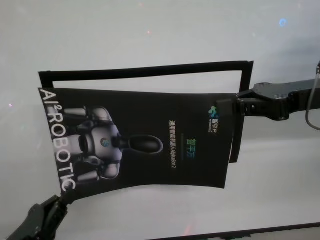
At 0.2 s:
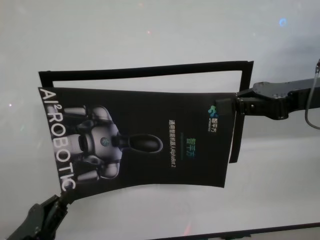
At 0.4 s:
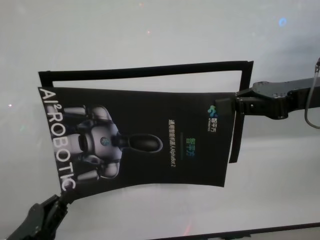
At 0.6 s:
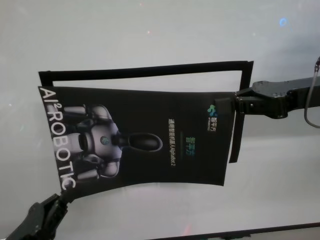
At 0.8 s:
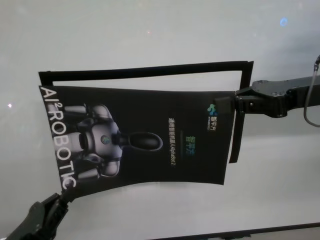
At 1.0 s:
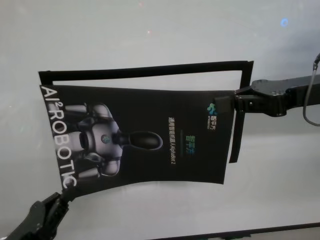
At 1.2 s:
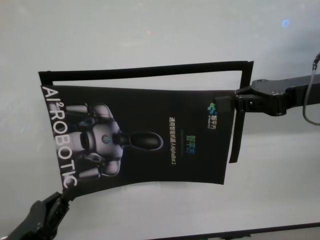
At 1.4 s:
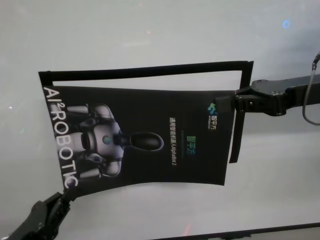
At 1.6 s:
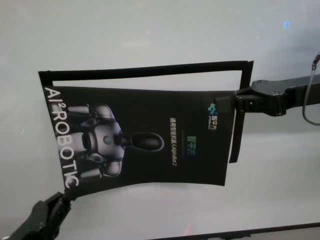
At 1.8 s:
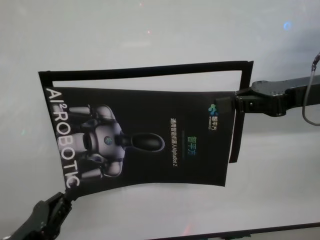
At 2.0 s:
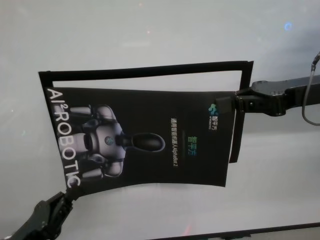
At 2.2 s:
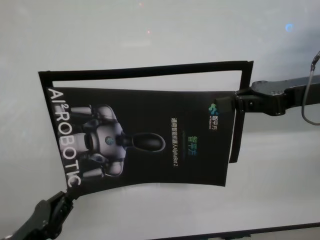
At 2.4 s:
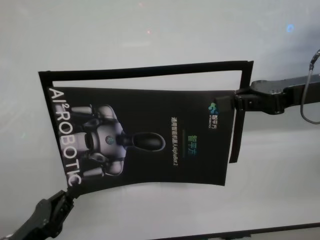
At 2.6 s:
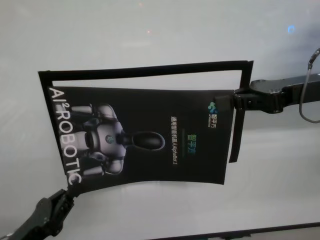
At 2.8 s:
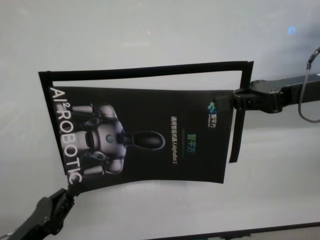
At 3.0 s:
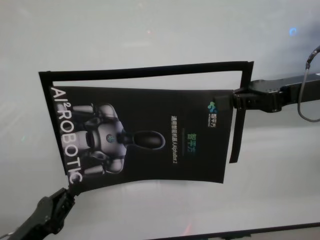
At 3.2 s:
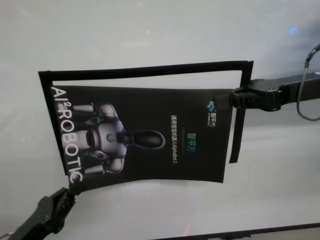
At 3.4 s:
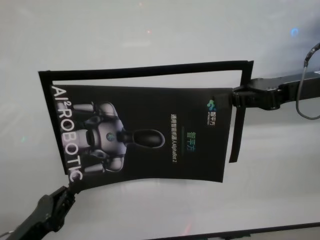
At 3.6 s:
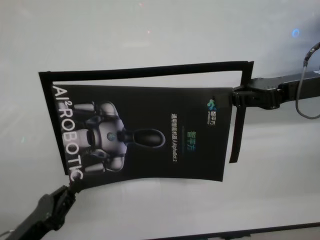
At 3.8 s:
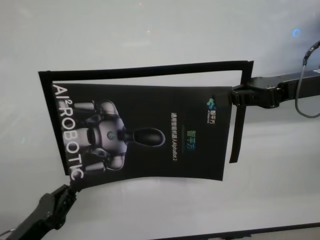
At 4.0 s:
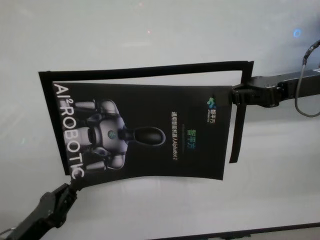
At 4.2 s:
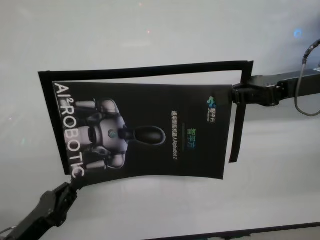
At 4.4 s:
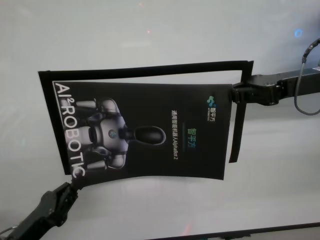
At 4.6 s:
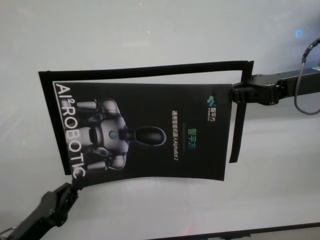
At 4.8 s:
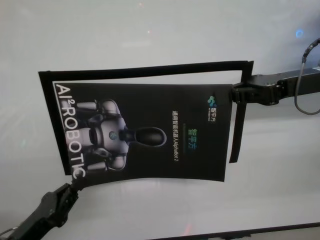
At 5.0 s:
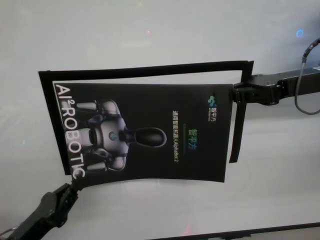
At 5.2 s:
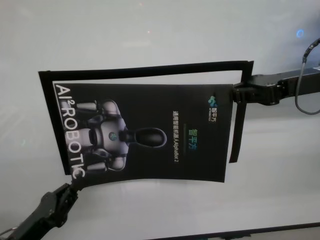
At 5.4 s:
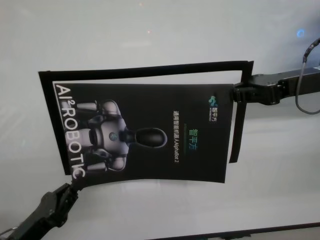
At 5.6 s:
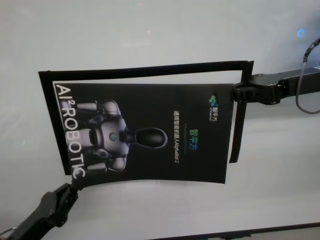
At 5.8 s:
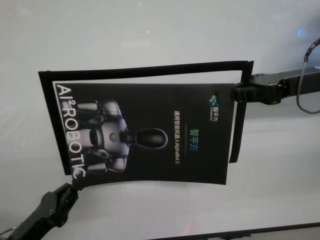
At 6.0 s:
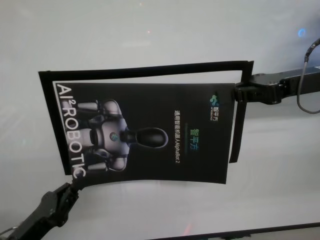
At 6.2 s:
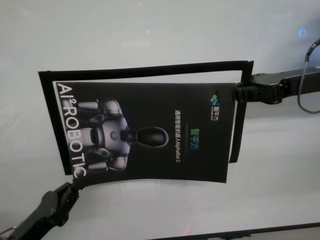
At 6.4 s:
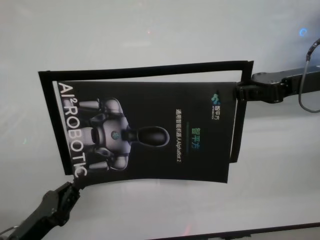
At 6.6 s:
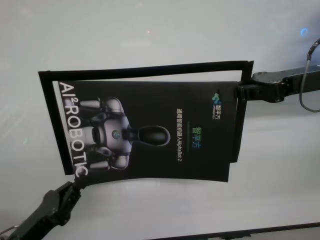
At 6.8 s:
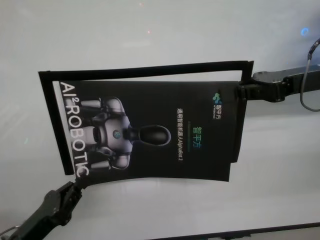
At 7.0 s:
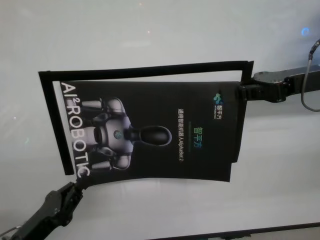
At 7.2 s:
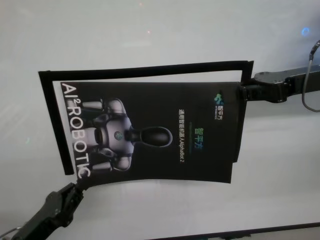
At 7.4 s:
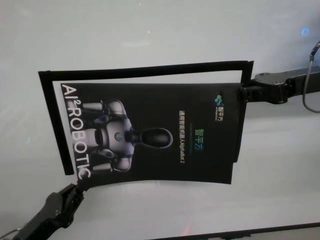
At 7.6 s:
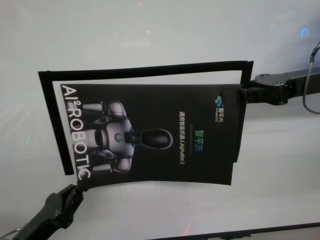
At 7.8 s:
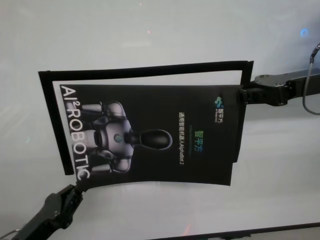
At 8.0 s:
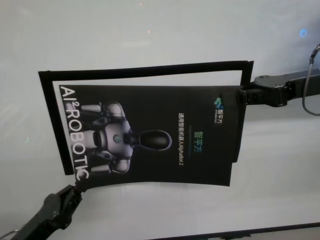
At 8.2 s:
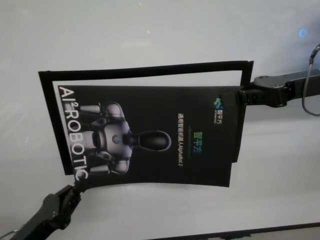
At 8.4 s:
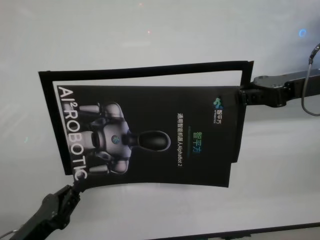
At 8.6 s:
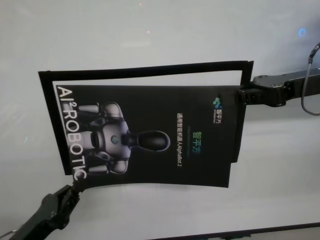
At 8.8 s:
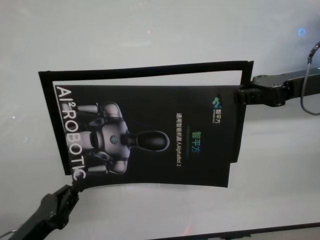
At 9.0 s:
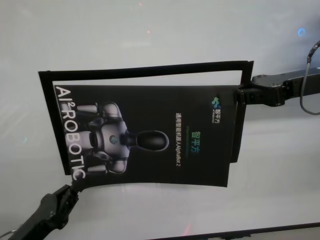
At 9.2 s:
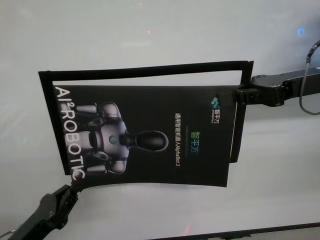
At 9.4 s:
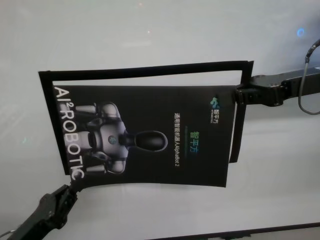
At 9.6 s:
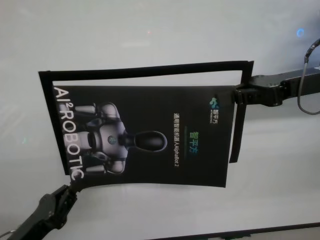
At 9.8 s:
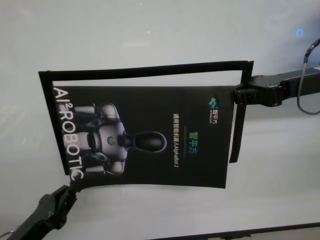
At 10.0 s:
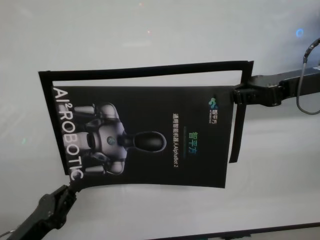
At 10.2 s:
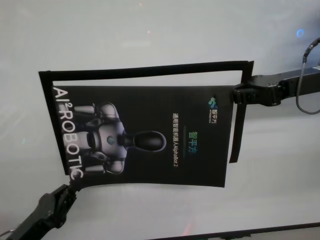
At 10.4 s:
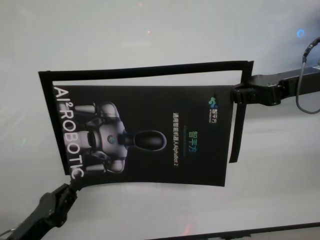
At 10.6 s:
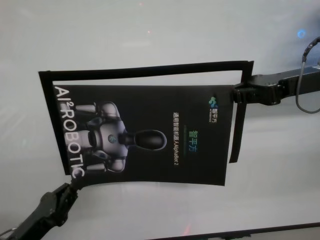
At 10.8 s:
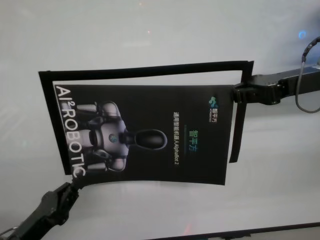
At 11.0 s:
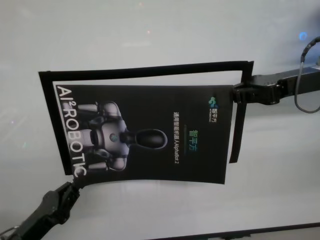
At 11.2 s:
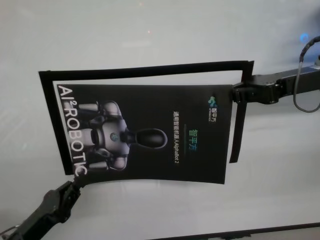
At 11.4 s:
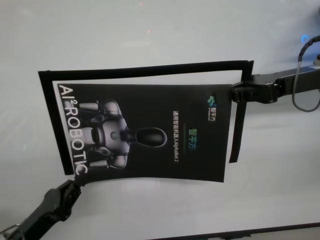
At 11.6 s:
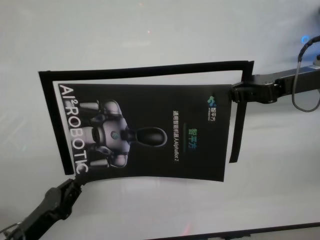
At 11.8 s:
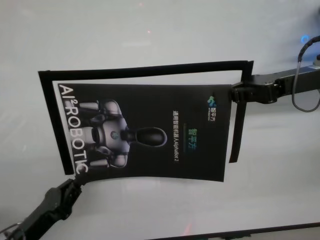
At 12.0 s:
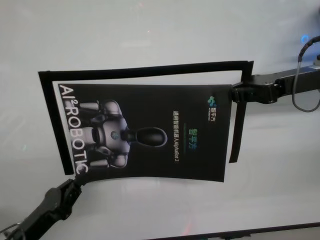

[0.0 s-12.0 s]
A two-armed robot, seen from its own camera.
Task of the whole recording: stick the poster on the table by hand.
Step, 0.0 to 9.6 s: Stick the advertisement in the top-right corner area with both grippers.
